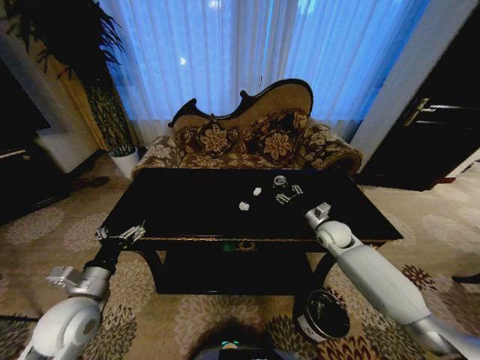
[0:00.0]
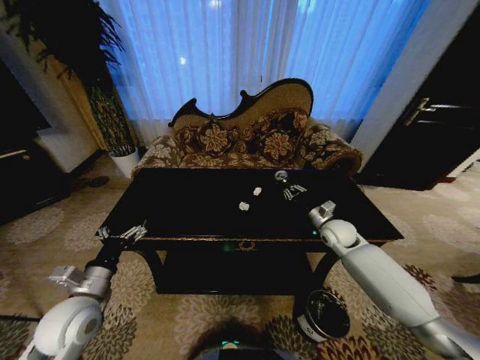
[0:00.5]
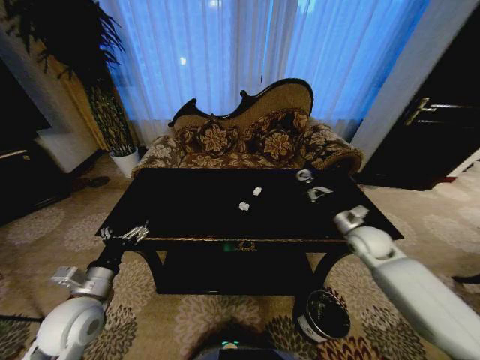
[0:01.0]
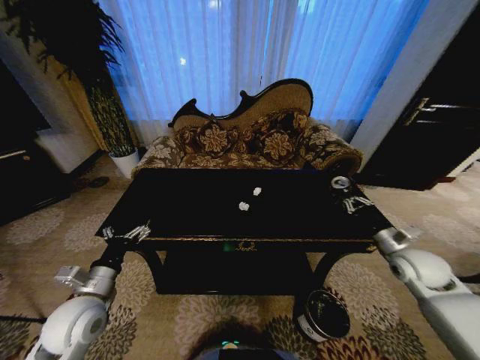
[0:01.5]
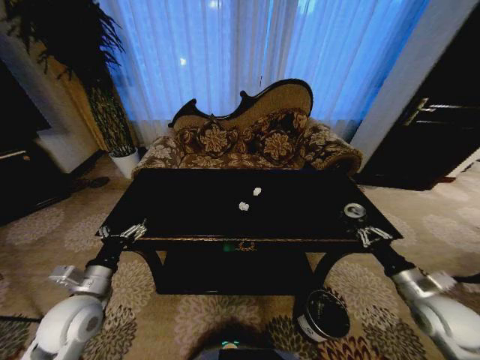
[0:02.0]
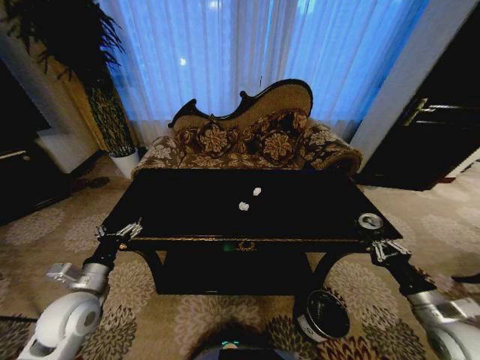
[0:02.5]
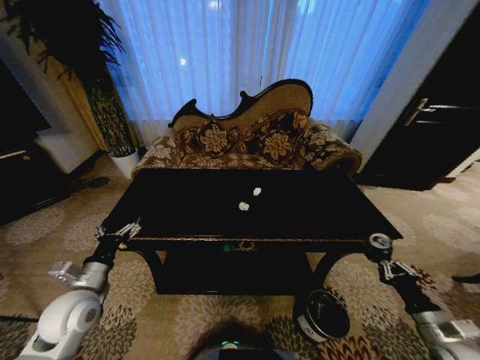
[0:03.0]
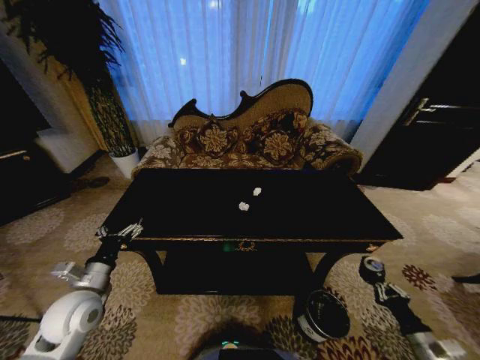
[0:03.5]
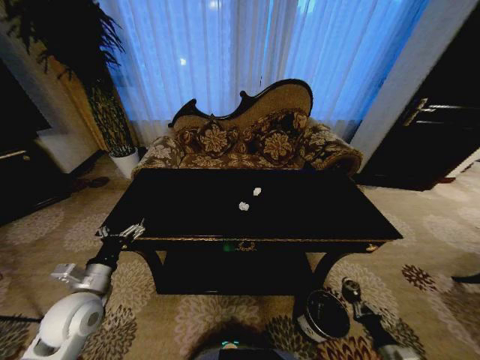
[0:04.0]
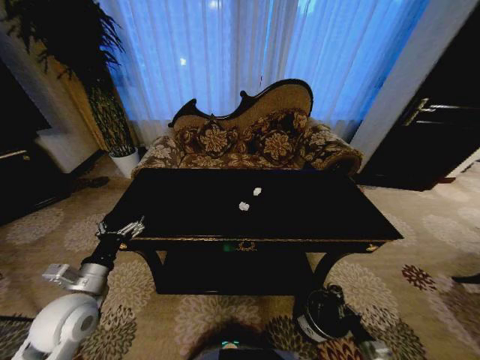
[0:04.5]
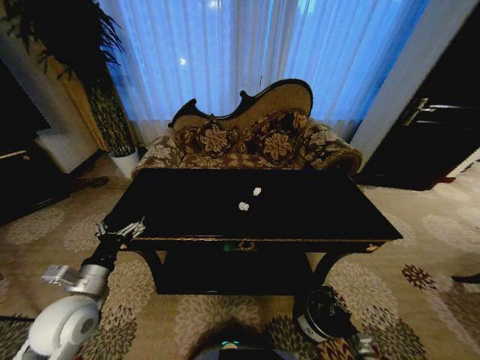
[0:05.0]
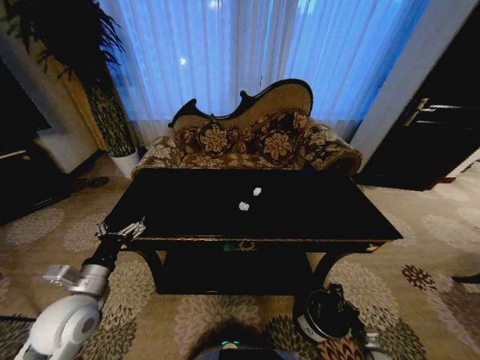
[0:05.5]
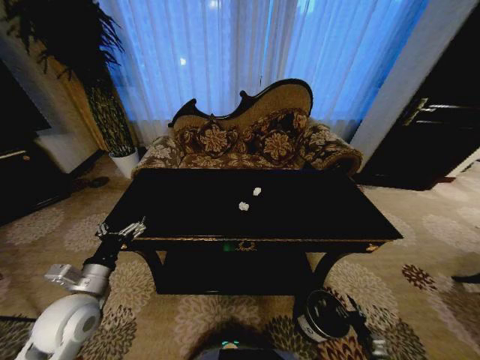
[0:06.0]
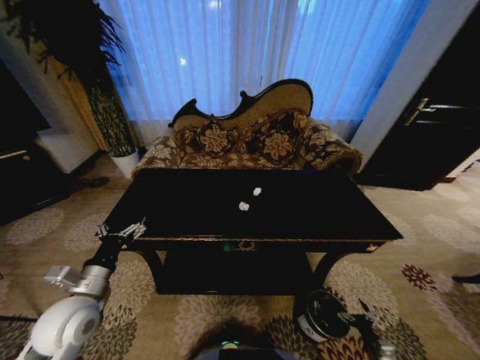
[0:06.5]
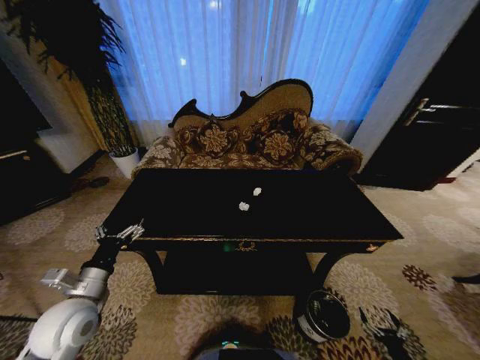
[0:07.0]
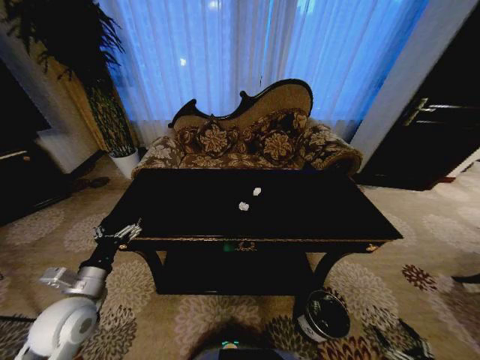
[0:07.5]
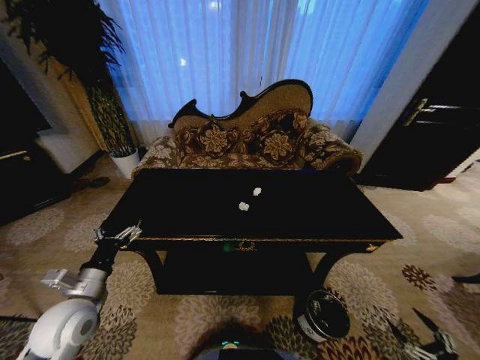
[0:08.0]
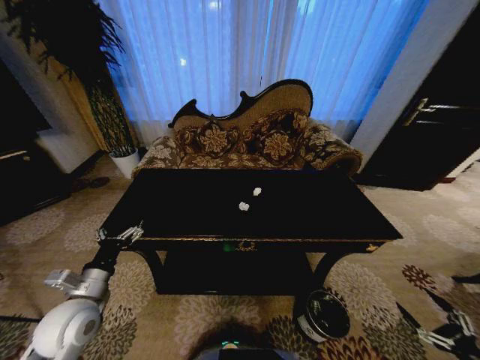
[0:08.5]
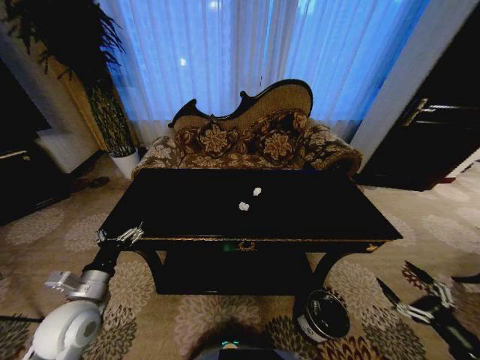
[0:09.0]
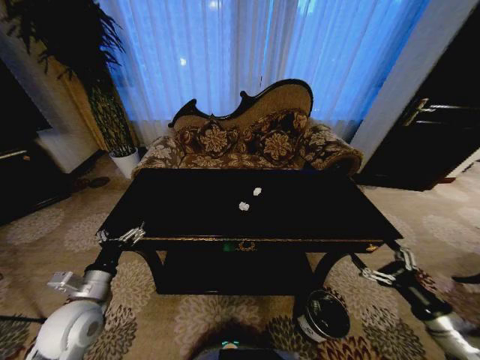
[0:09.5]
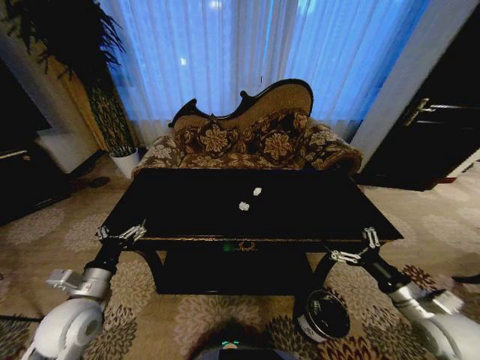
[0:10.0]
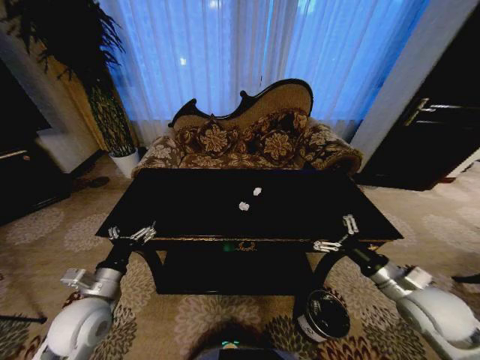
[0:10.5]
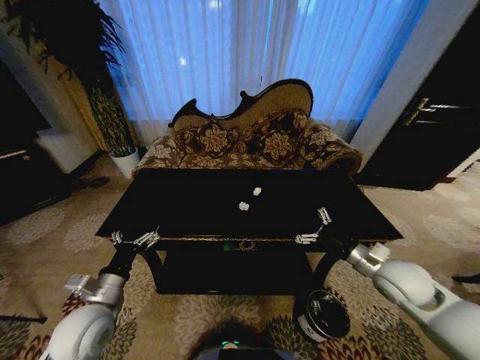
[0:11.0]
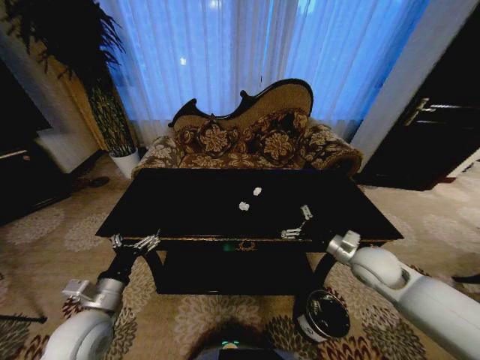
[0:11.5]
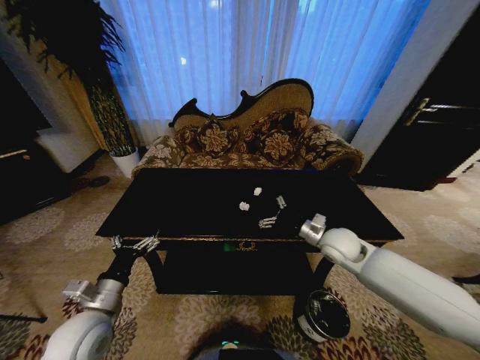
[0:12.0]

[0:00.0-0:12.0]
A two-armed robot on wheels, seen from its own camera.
Task of the whole recording: Move to the front of the table and place the trash on the table into the trash bin.
0:00.0 to 0:02.0: The right gripper goes some 25 cm backward and to the right, and closes.
0:02.0 to 0:04.0: The right gripper moves downward and backward, roughly 30 cm.
0:04.0 to 0:06.0: The right gripper shifts some 10 cm downward, and opens.
0:06.0 to 0:08.0: The right gripper travels upward, backward and to the right by roughly 25 cm, and opens.
0:08.0 to 0:10.0: The right gripper heads forward, upward and to the left, covering approximately 35 cm.
0:10.0 to 0:12.0: The right gripper travels forward and to the left by roughly 25 cm.

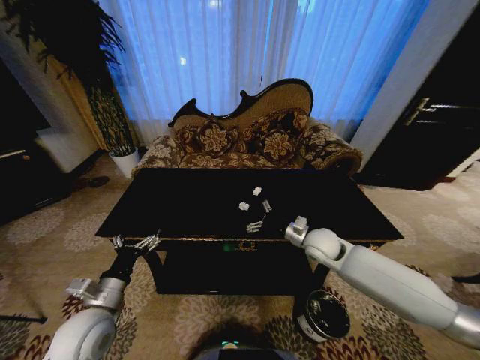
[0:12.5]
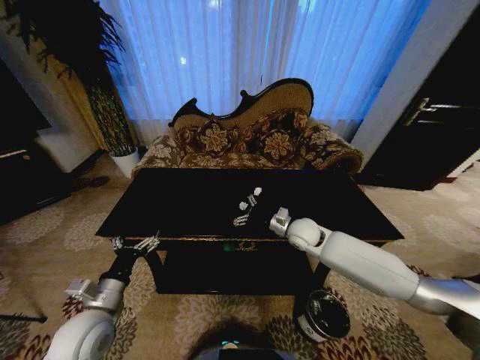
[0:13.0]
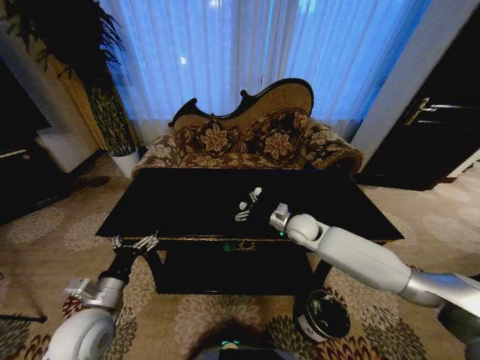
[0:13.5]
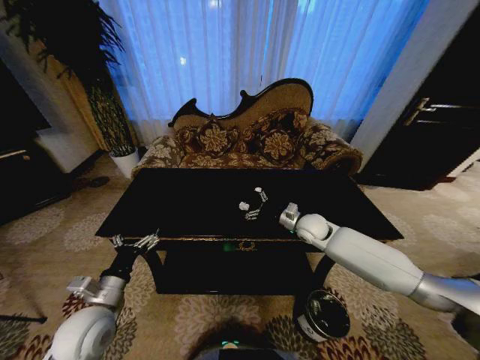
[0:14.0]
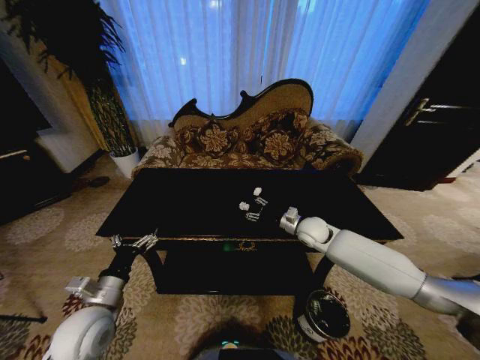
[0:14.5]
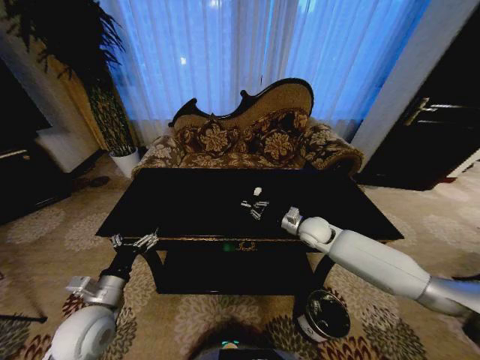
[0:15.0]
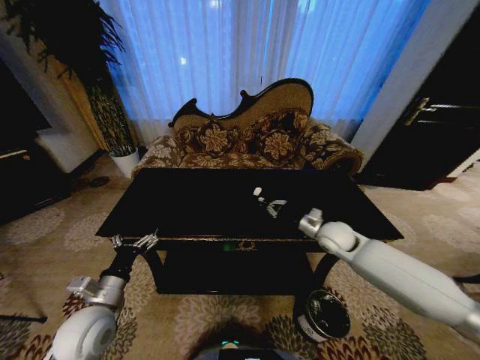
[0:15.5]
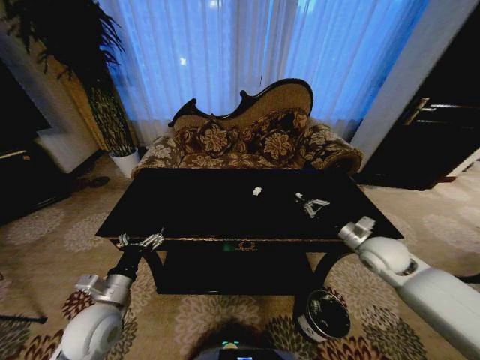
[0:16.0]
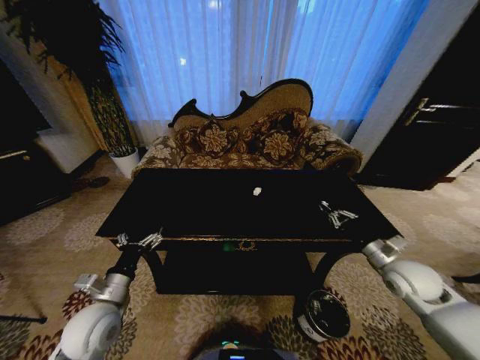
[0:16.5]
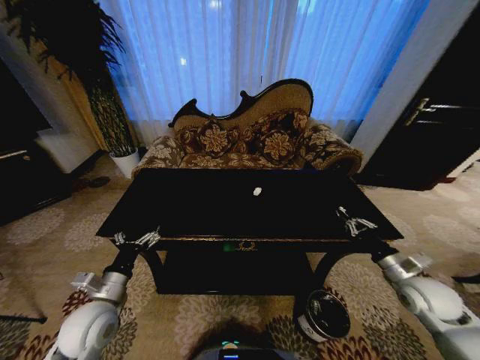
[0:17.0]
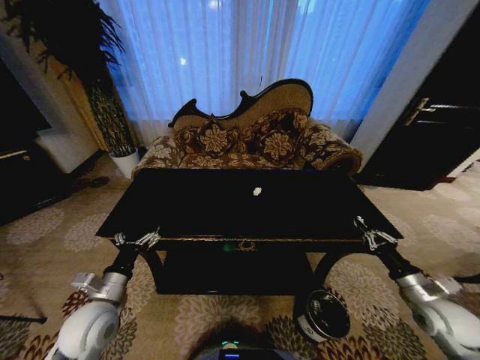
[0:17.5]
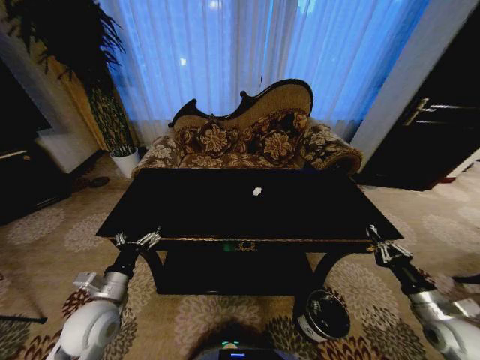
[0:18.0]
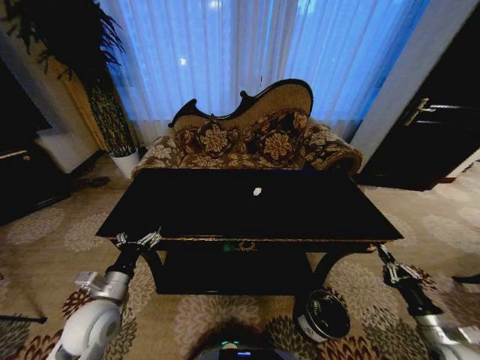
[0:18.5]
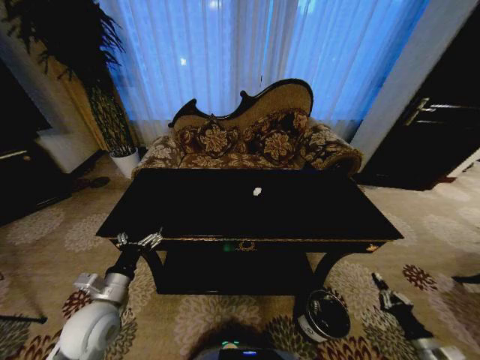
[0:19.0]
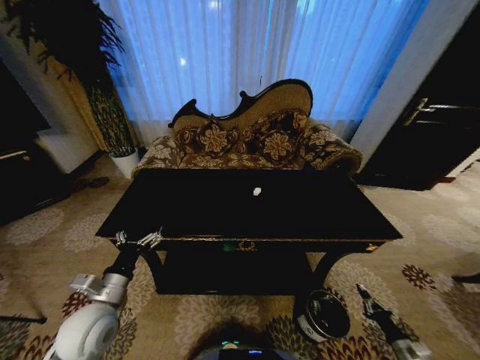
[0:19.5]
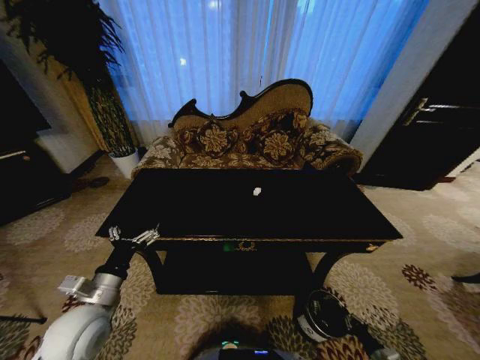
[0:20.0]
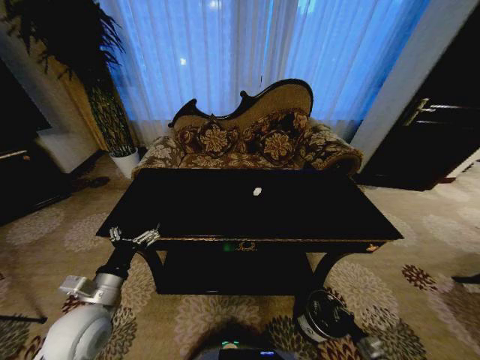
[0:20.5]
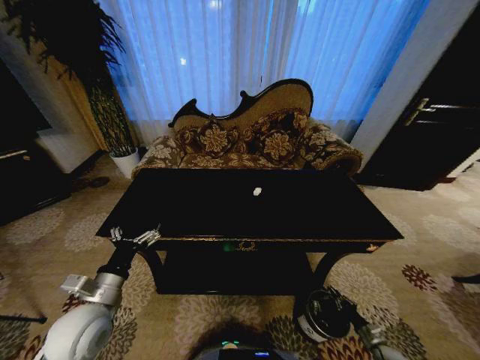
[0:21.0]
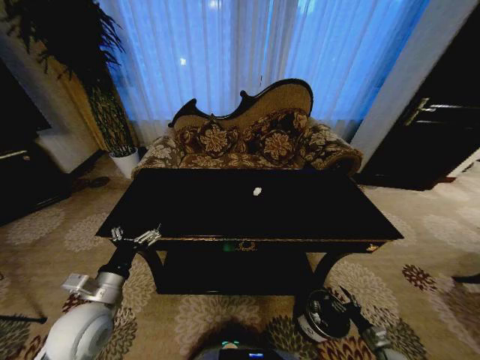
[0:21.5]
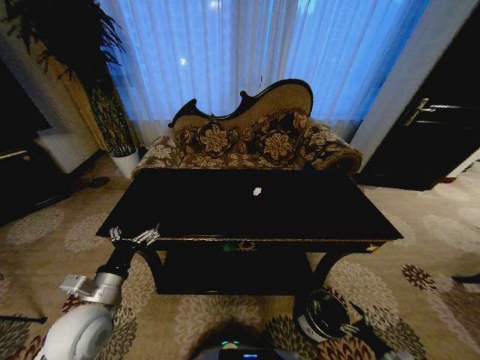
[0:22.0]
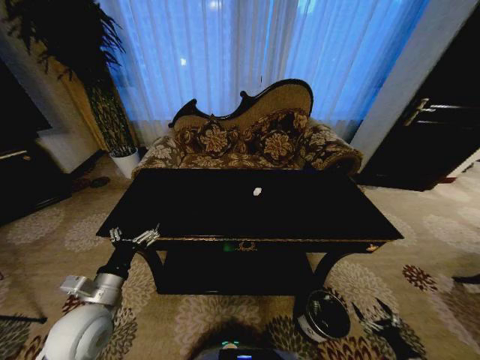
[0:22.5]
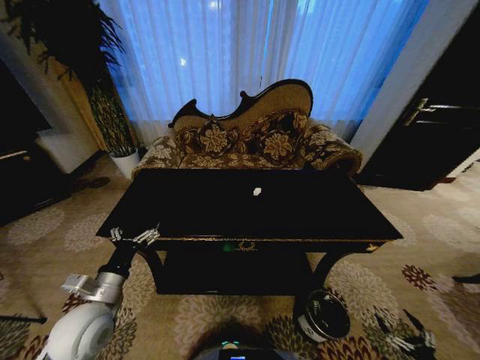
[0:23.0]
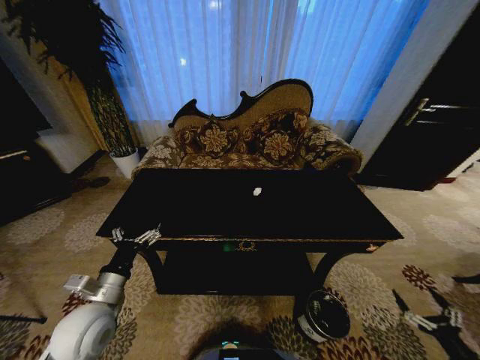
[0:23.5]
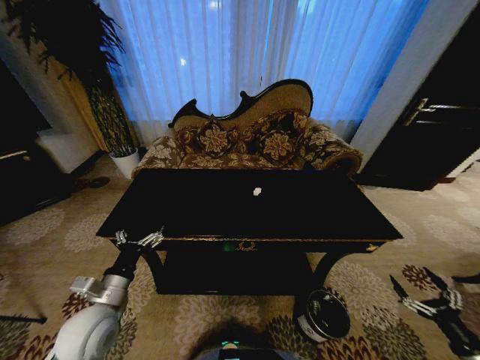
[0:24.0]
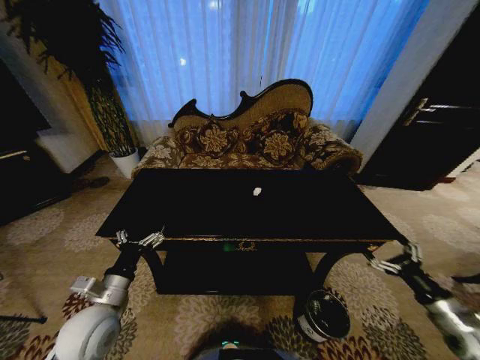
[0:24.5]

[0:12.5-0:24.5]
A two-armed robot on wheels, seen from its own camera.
Task of the whole recording: Move to the front of the table and place the trash on the table into the trash bin.
0:12.5 to 0:14.5: The right gripper heads forward, covering some 5 cm, and closes up.
0:14.5 to 0:16.5: The right gripper goes roughly 25 cm to the right and backward, and closes up.
0:16.5 to 0:18.5: The right gripper goes about 20 cm backward, downward and to the right.
0:18.5 to 0:20.5: The right gripper goes about 25 cm downward.
0:20.5 to 0:22.5: The right gripper is displaced to the right, upward and backward by about 10 cm, and opens its fingers.
0:22.5 to 0:24.5: The right gripper is displaced upward and forward by roughly 25 cm.

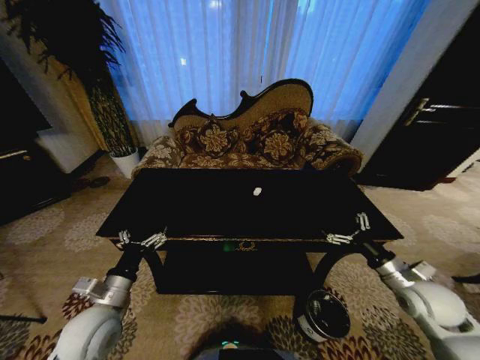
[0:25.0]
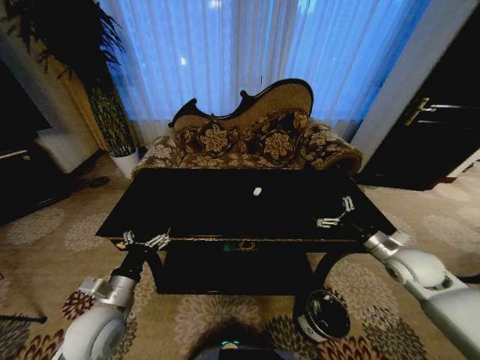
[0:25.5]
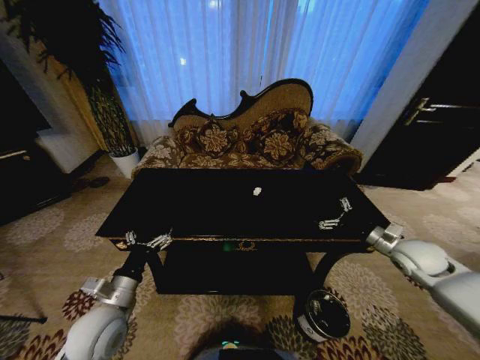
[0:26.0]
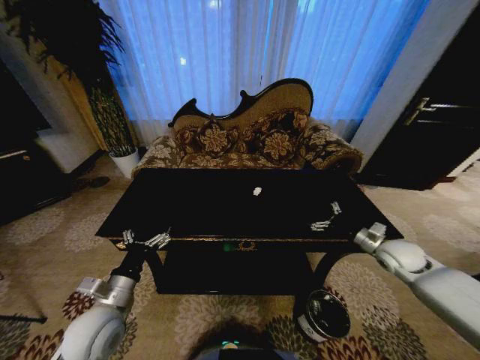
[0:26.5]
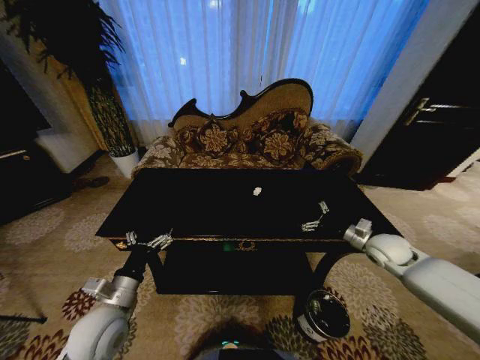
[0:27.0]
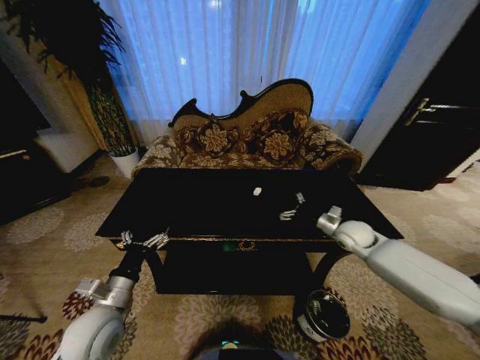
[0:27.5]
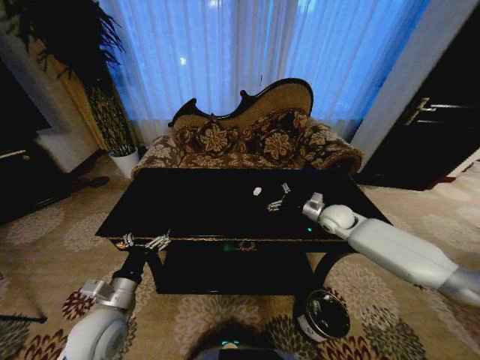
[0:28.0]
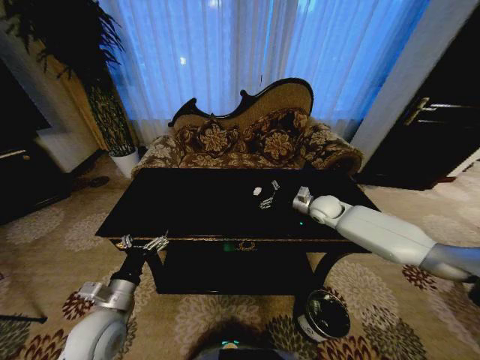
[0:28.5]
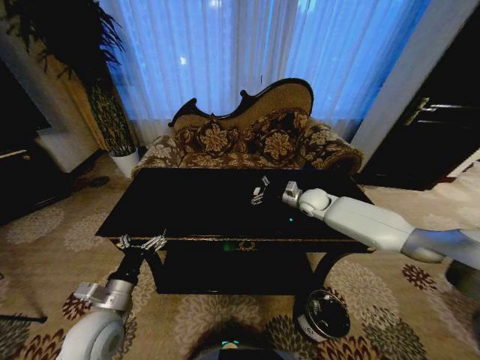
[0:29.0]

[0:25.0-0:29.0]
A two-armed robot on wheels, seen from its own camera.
Task of the whole recording: Move to the front of the table and place the trash on the table into the trash bin.
0:25.0 to 0:27.0: The right gripper heads forward, covering about 15 cm.
0:27.0 to 0:29.0: The right gripper is displaced forward and to the left by some 25 cm.
